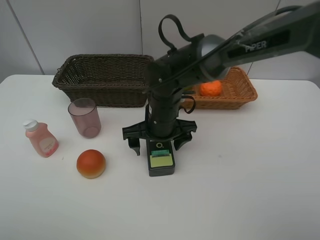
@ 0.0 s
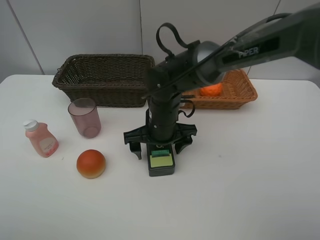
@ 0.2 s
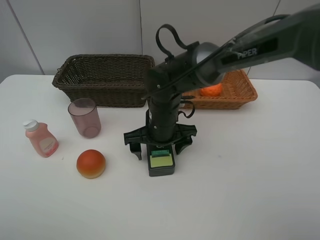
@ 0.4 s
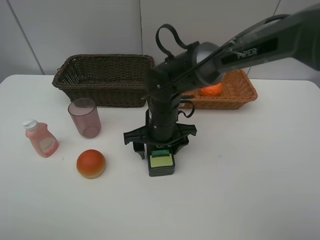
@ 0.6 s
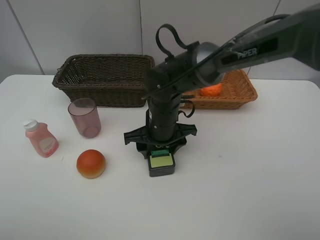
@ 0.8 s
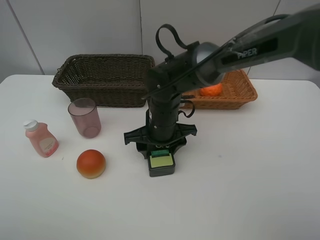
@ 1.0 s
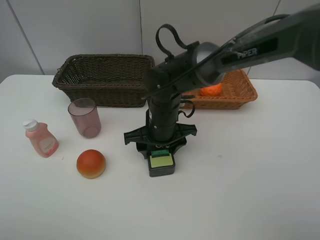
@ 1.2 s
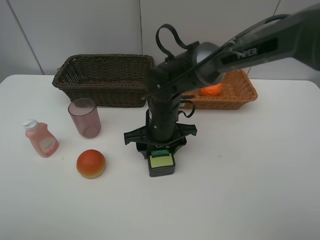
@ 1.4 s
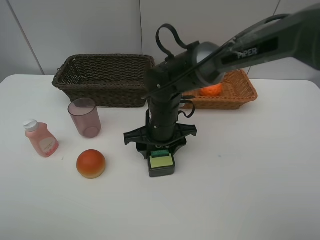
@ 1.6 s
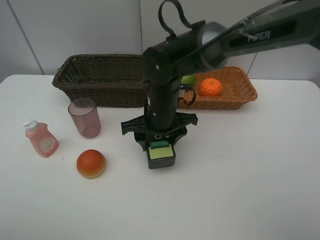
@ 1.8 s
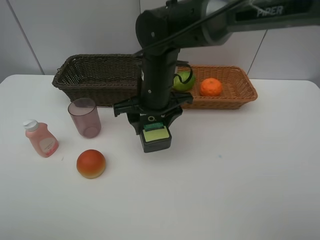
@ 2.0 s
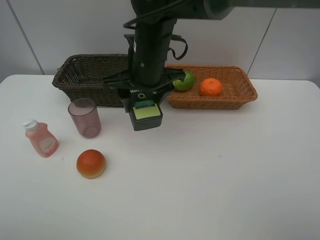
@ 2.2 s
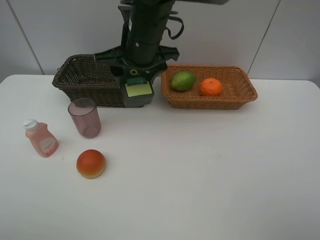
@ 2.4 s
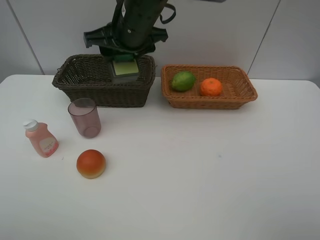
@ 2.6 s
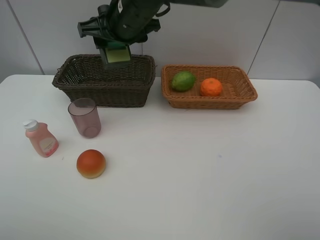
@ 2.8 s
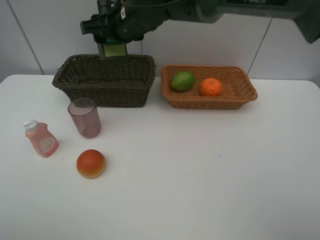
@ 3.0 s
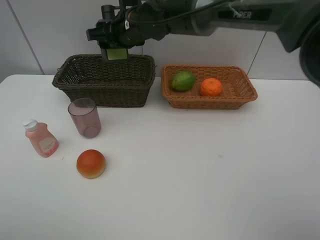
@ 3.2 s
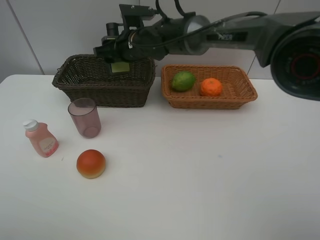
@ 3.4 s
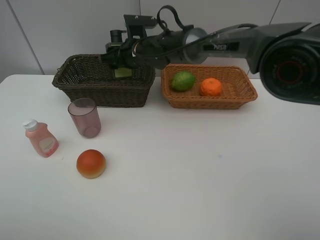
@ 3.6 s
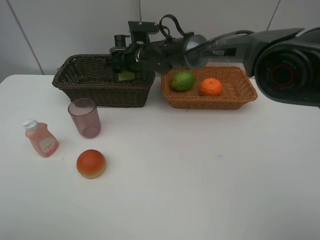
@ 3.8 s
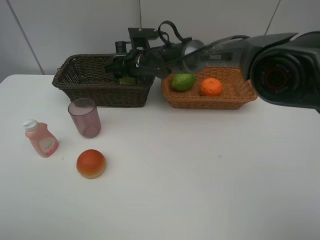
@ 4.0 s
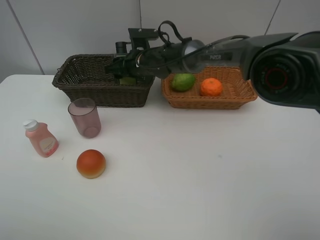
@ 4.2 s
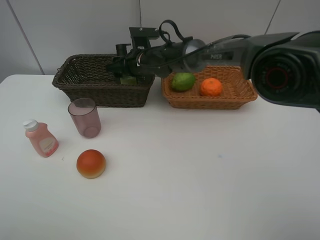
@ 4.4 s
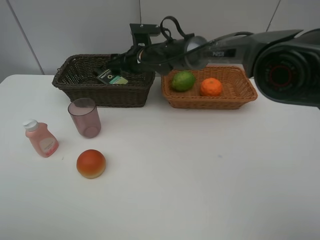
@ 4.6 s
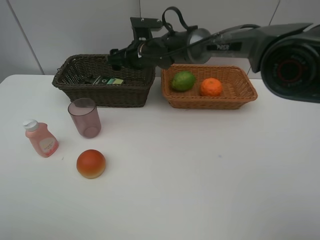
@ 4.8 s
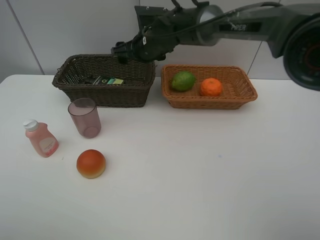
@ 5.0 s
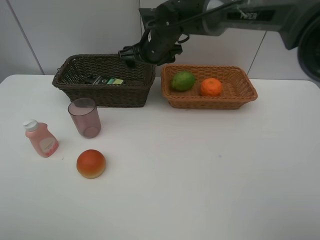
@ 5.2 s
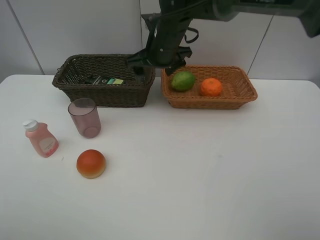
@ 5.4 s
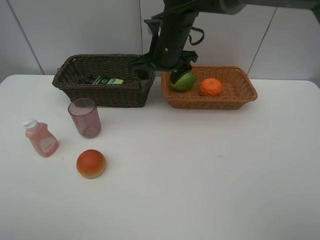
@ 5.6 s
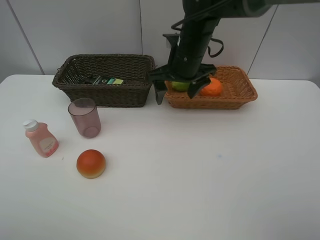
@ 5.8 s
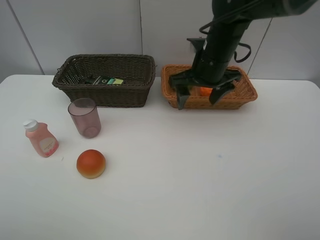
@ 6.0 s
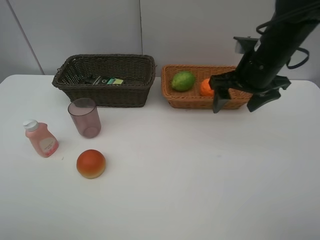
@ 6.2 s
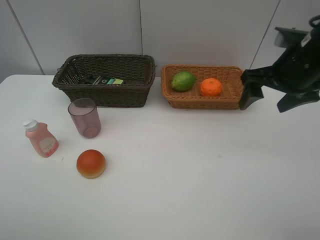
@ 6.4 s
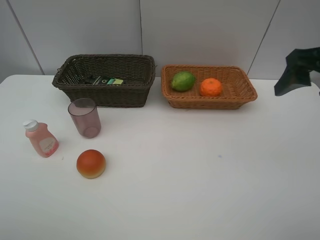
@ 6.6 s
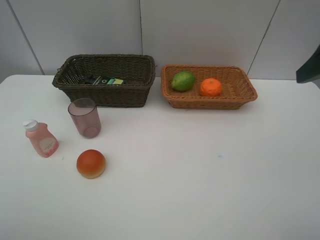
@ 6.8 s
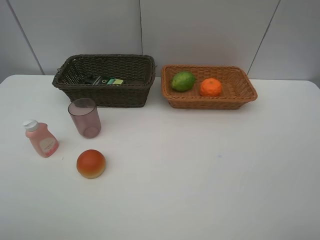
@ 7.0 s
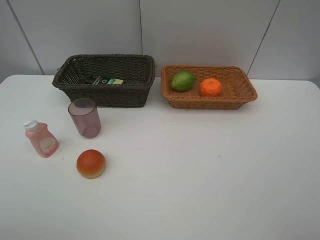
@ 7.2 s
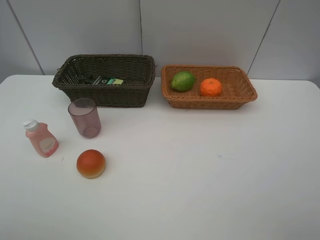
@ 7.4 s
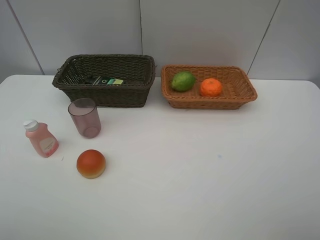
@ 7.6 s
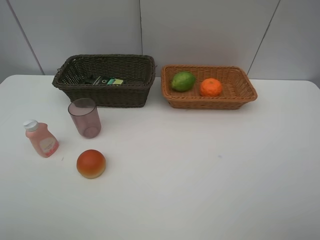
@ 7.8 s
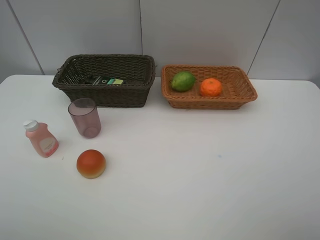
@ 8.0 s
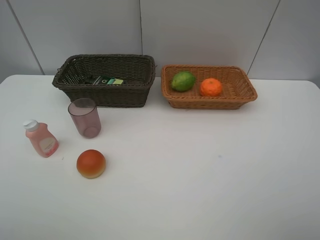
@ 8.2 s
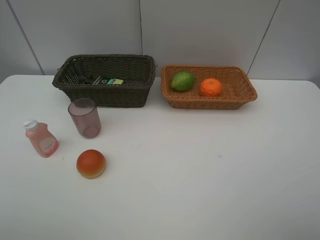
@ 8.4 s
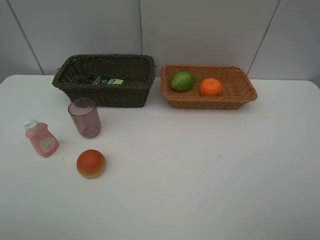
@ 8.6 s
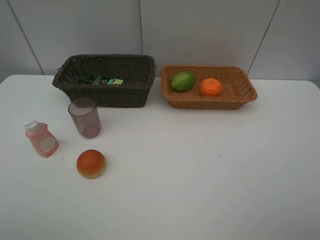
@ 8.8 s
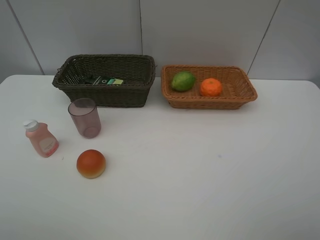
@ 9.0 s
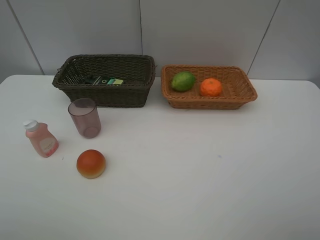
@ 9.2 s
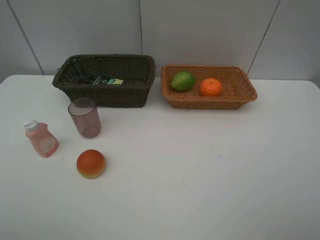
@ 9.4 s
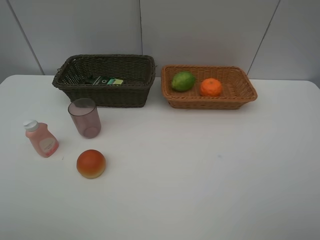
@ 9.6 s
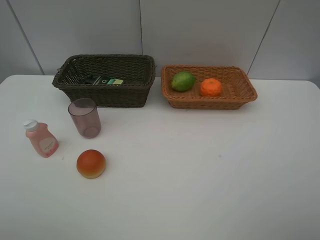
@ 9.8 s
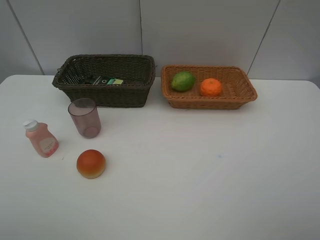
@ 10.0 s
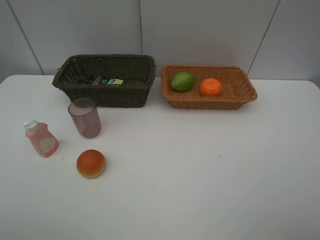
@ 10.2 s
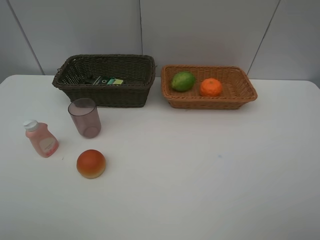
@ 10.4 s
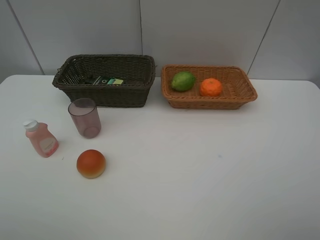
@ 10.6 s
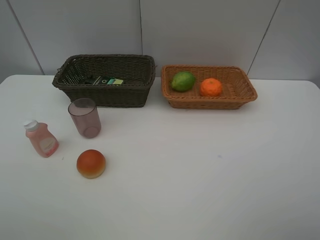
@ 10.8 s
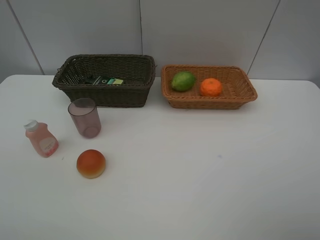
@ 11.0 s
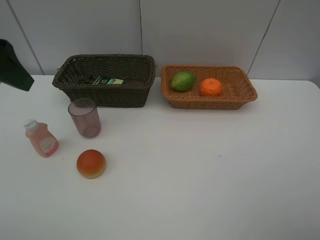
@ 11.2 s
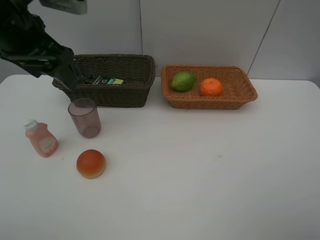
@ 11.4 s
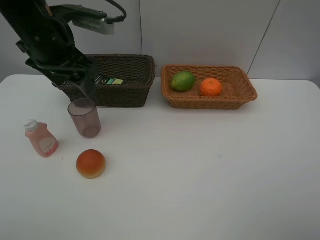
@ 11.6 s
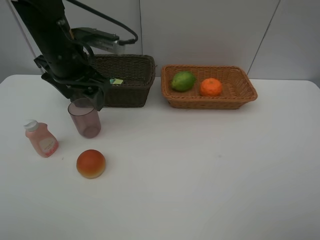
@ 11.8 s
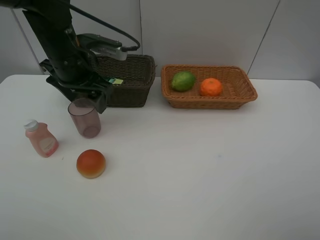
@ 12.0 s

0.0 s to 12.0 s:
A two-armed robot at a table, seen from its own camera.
Task of the whole recording: place multiple objects separately in different baskets.
0.0 to 1.6 s: The right gripper closes its fingers.
1.6 to 3.0 s: The right gripper heads upward and forward, covering approximately 20 cm.
3.0 to 4.4 s: The right gripper shifts about 15 cm downward and forward.
4.4 to 6.0 s: The right gripper shifts about 20 cm to the right, backward and upward, and opens its fingers.
6.0 to 7.6 s: The right gripper goes about 35 cm backward and to the right.
9.0 to 10.4 s: Neither gripper changes place.
10.4 to 12.0 s: The left gripper heads forward and to the right, covering about 35 cm.

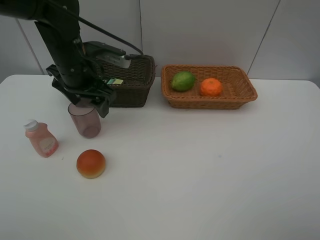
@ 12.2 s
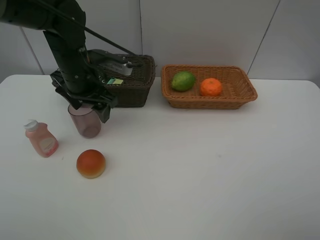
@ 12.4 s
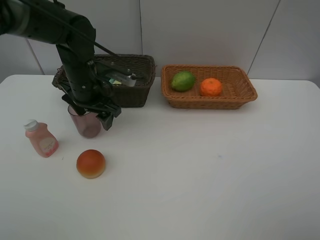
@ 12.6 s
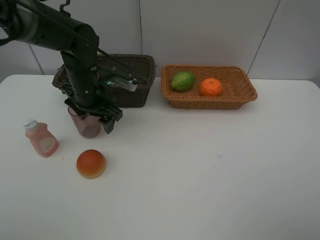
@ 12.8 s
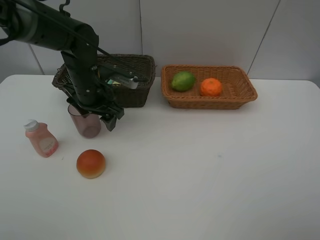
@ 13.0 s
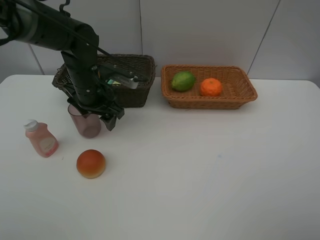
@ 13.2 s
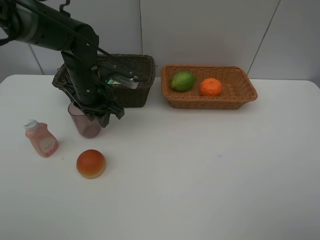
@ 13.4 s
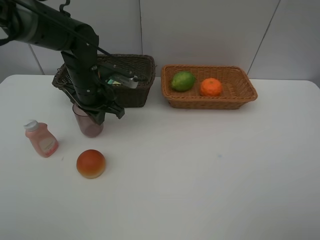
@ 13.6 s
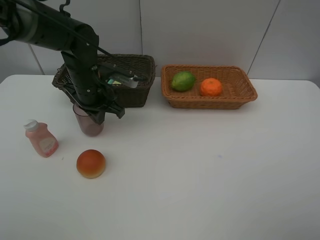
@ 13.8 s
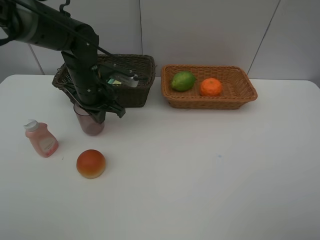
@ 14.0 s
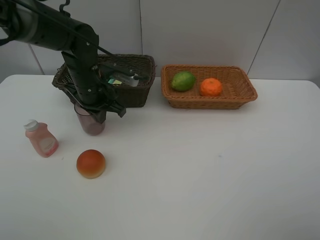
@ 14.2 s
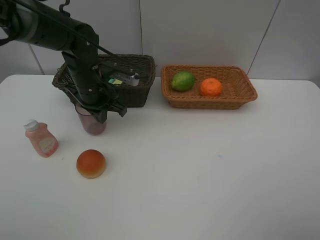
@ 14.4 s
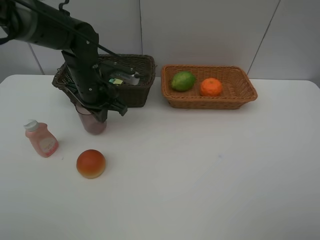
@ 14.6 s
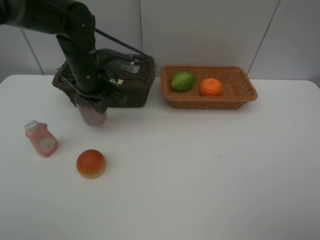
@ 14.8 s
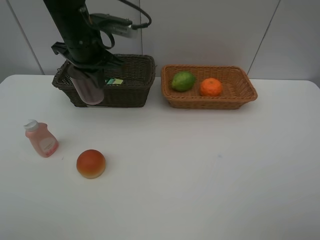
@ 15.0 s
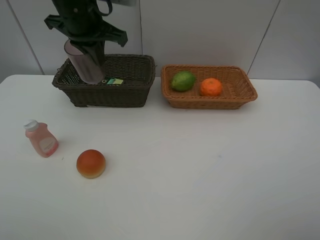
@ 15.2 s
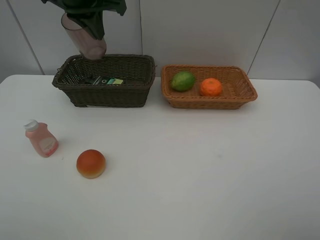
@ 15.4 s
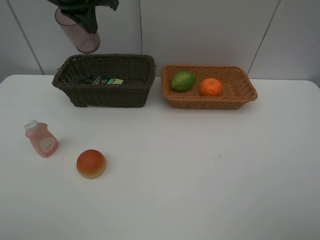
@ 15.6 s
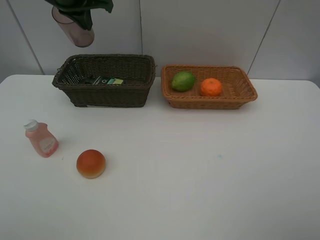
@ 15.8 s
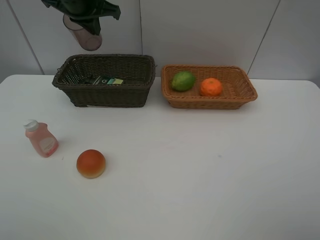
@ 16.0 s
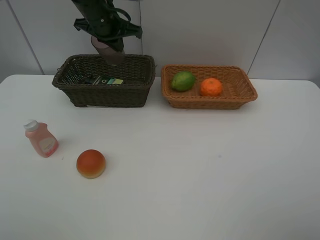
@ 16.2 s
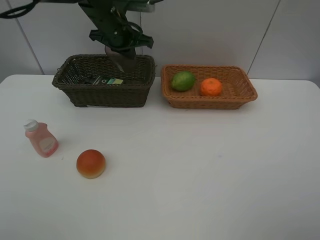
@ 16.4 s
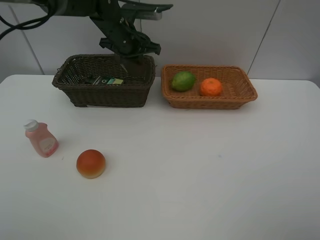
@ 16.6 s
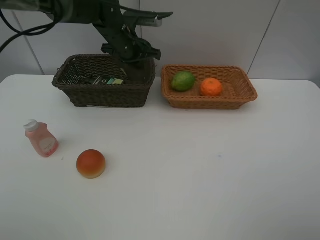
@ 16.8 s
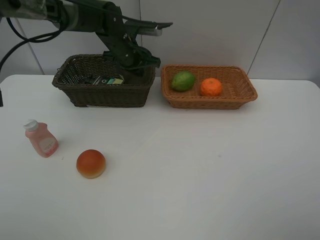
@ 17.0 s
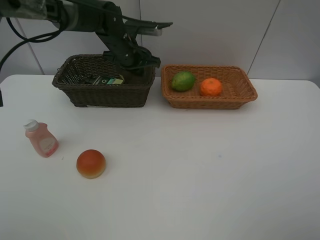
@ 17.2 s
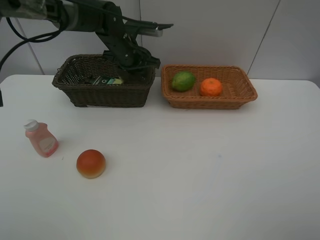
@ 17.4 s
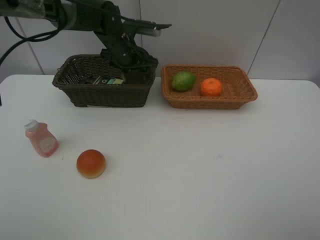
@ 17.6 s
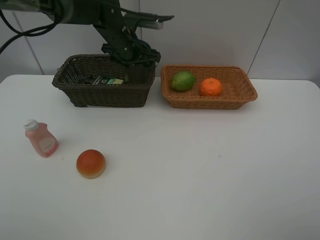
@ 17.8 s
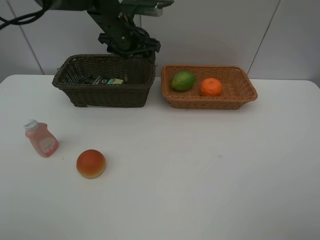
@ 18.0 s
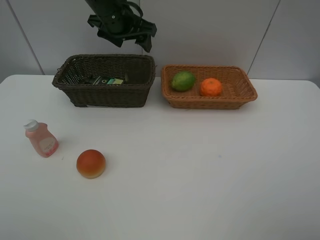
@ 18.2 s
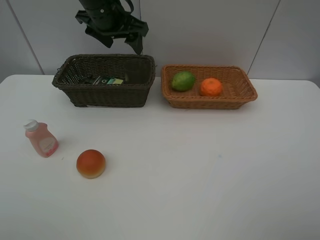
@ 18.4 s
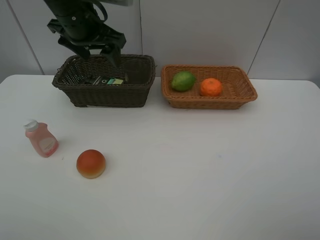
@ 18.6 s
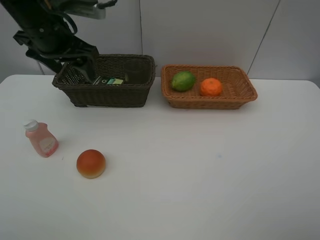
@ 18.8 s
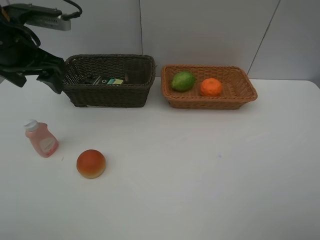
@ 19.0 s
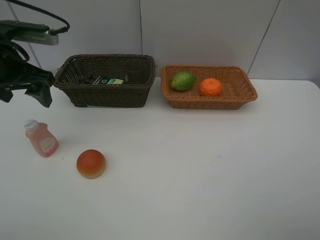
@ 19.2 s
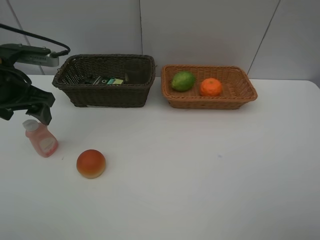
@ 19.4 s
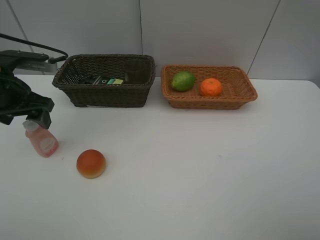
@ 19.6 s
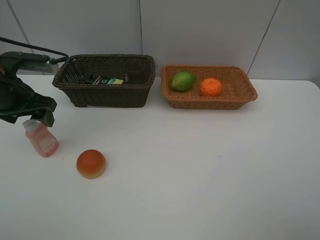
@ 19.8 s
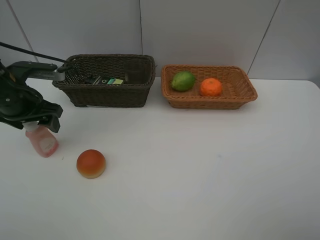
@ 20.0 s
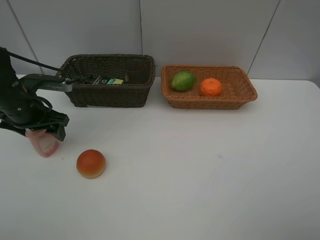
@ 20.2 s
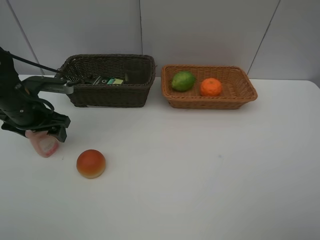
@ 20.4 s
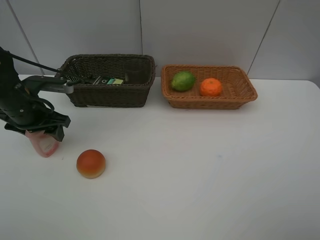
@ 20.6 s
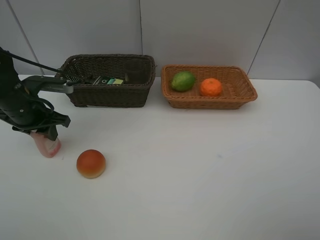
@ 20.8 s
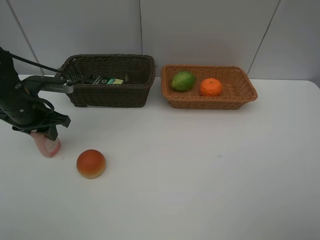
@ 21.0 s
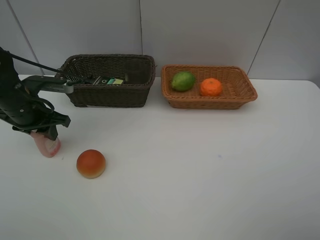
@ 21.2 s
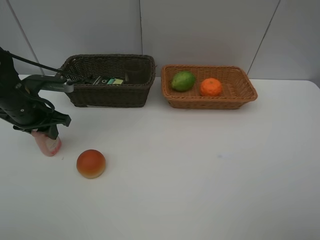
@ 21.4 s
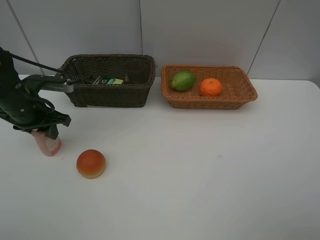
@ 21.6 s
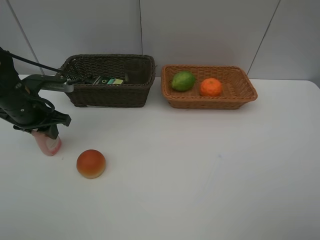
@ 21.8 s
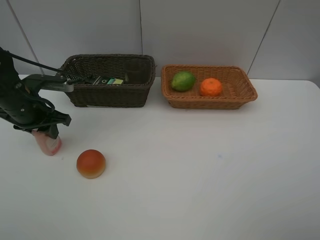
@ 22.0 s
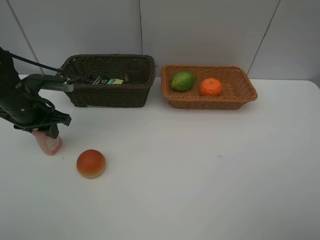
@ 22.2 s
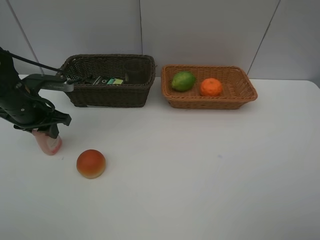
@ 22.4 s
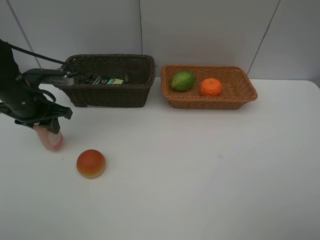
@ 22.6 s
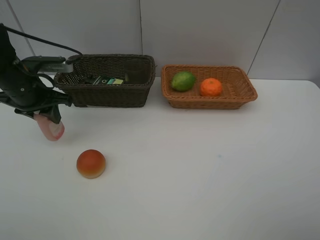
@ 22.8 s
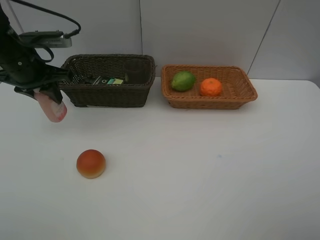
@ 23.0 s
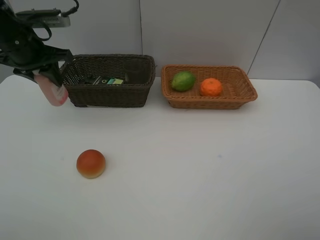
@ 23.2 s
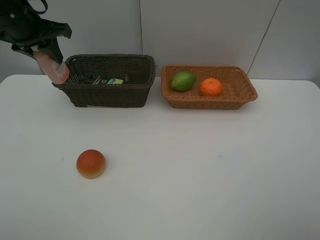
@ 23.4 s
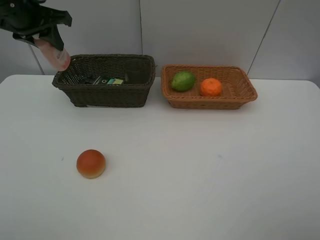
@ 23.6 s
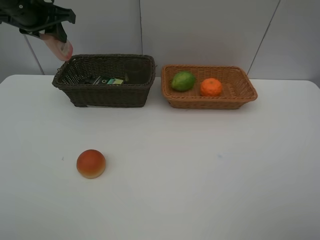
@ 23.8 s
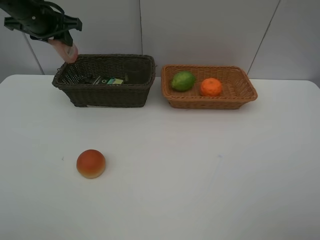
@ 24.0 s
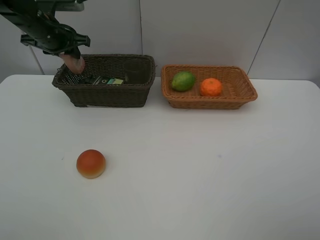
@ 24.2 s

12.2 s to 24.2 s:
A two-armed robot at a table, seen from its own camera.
Task of the whole recording: place multiple objects separately in different baskets.
12.2 to 13.8 s: The left gripper heads downward, covering roughly 5 cm, and closes.
13.8 to 15.2 s: The left gripper moves upward, some 15 cm.
15.2 to 16.6 s: The left gripper heads downward and forward, covering roughly 15 cm.
16.6 to 18.2 s: The left gripper travels upward by some 5 cm, and opens.
18.2 to 19.8 s: The left gripper is displaced to the left, backward and downward by approximately 25 cm.
19.8 to 21.2 s: The left gripper shifts about 5 cm downward, and closes its fingers.
21.2 to 22.6 s: The grippers make only small movements.
22.6 to 24.2 s: The left gripper shifts some 15 cm forward and upward.
